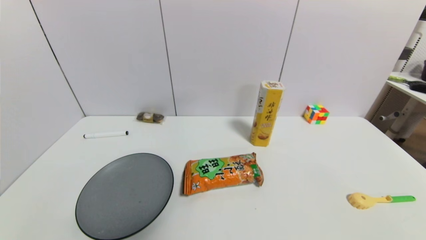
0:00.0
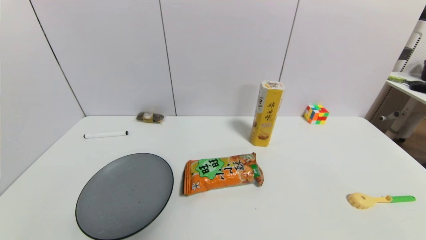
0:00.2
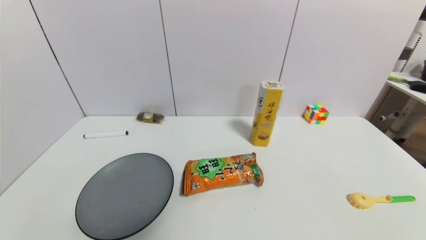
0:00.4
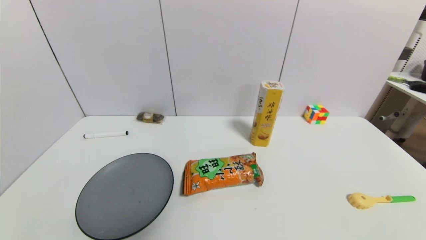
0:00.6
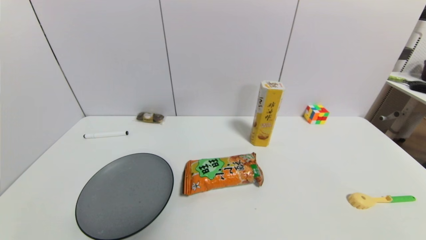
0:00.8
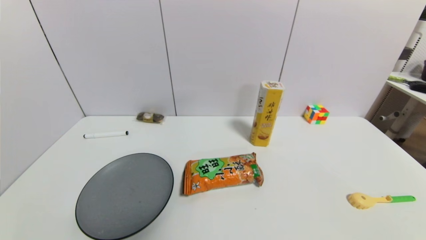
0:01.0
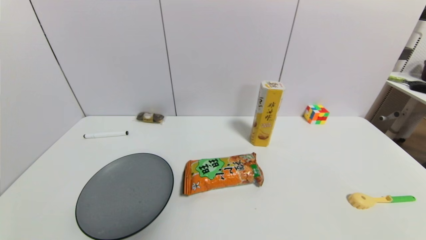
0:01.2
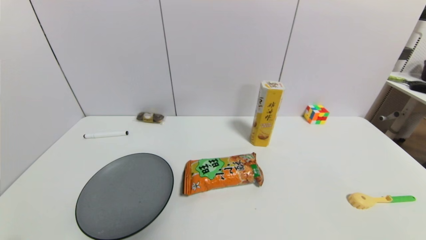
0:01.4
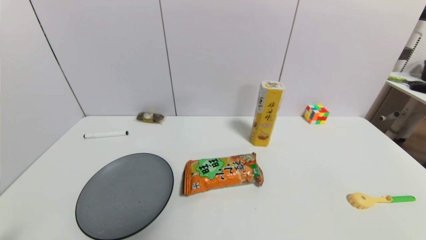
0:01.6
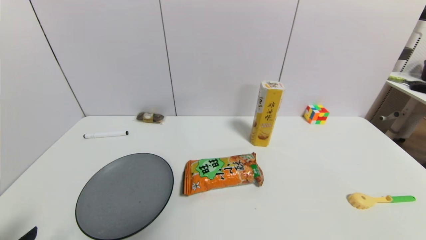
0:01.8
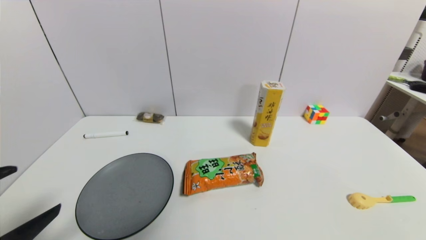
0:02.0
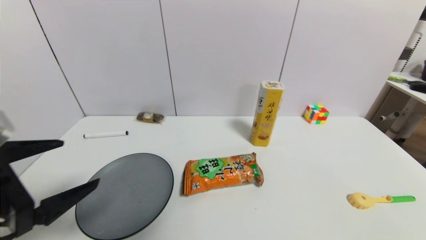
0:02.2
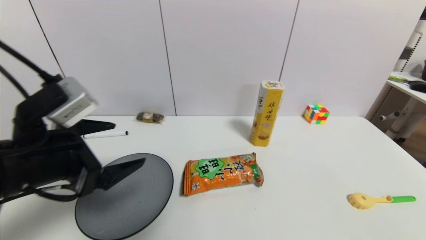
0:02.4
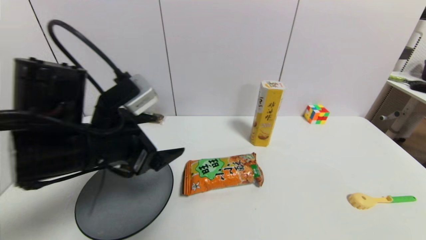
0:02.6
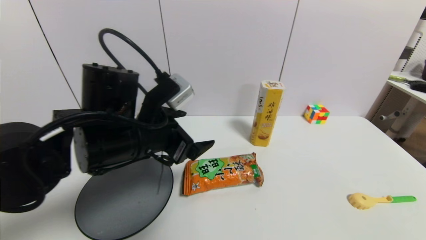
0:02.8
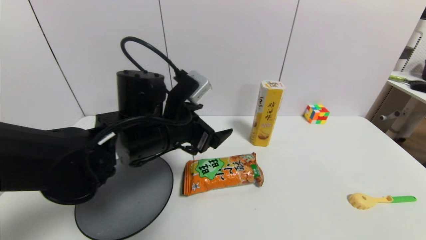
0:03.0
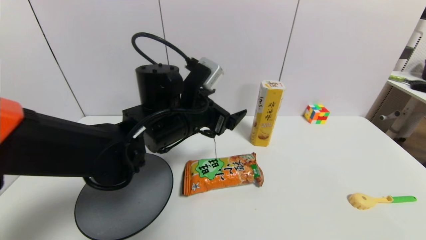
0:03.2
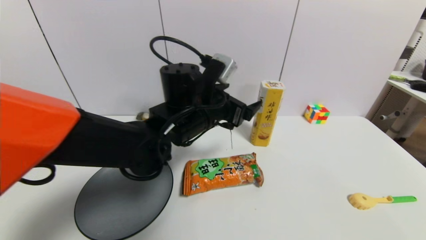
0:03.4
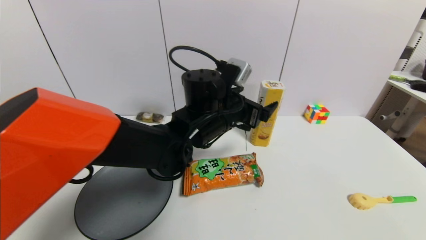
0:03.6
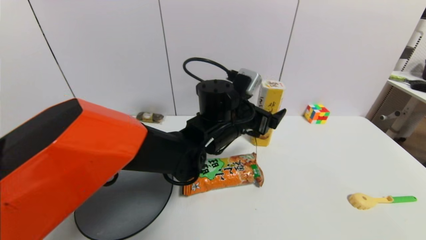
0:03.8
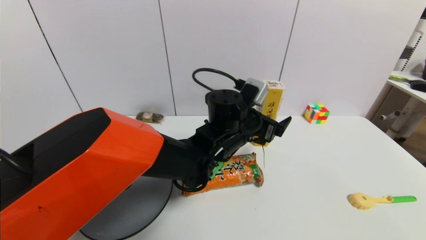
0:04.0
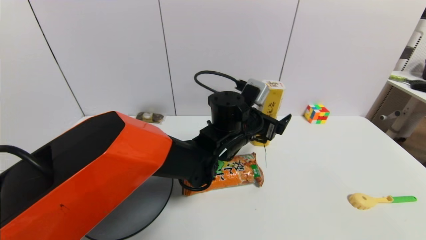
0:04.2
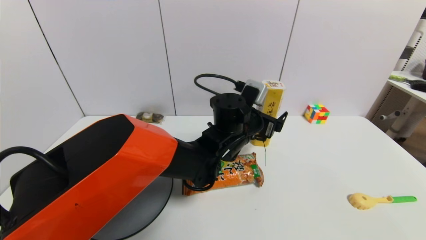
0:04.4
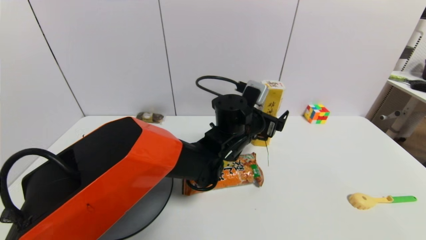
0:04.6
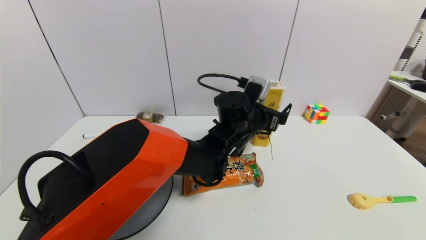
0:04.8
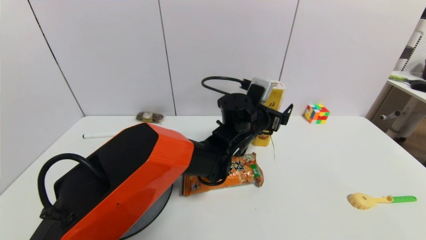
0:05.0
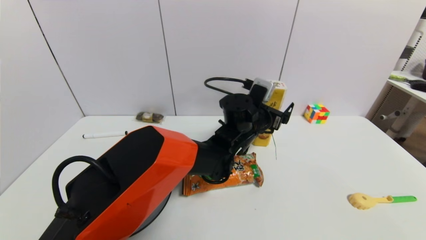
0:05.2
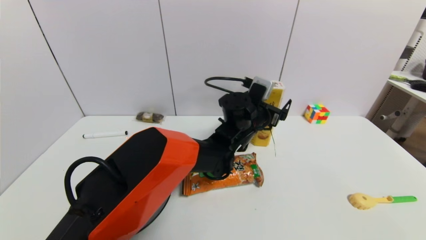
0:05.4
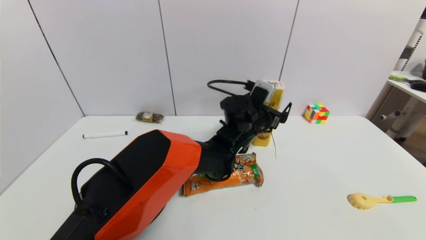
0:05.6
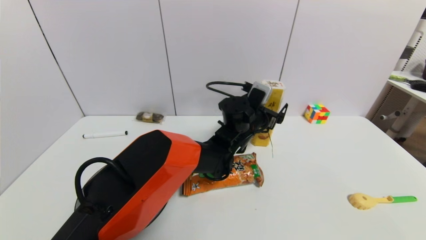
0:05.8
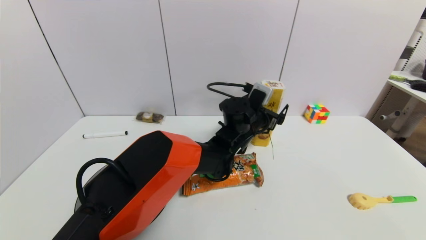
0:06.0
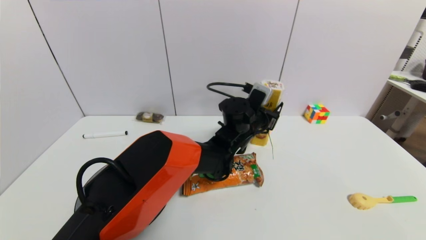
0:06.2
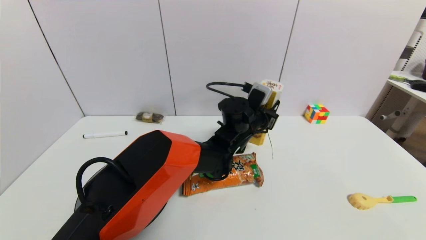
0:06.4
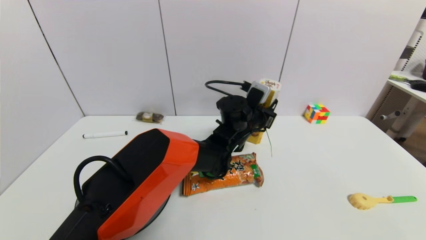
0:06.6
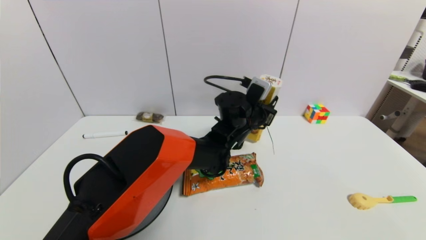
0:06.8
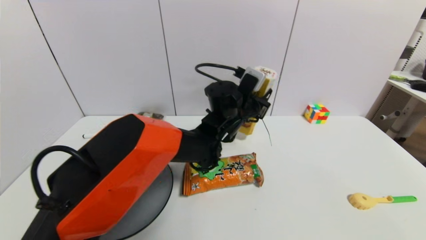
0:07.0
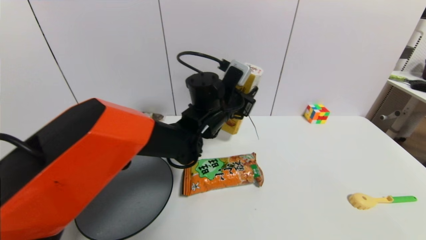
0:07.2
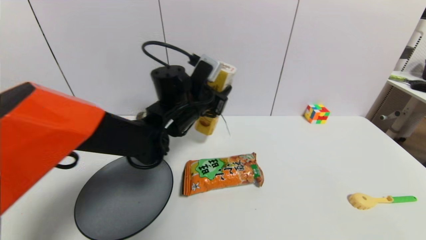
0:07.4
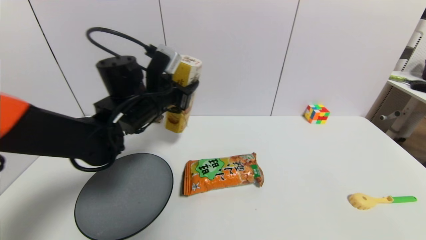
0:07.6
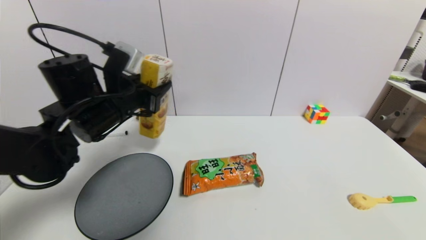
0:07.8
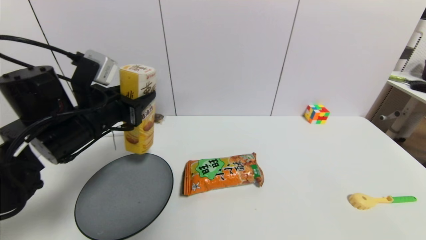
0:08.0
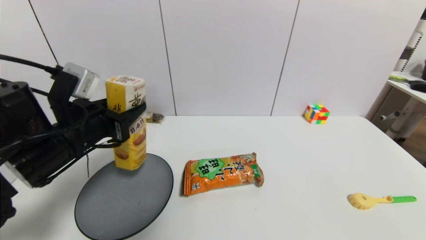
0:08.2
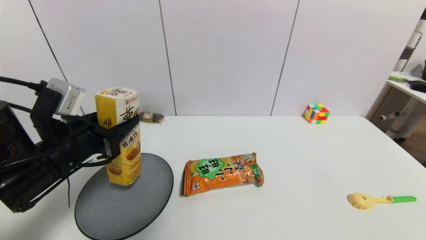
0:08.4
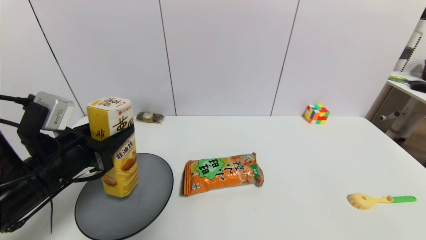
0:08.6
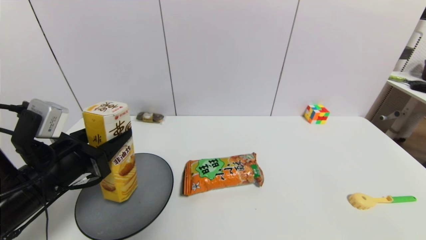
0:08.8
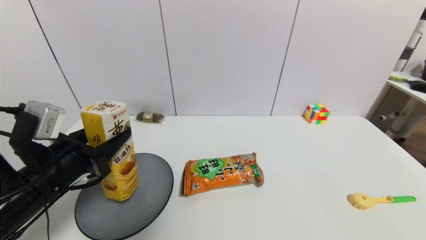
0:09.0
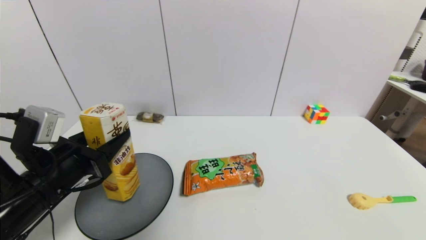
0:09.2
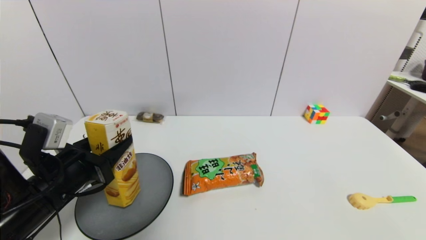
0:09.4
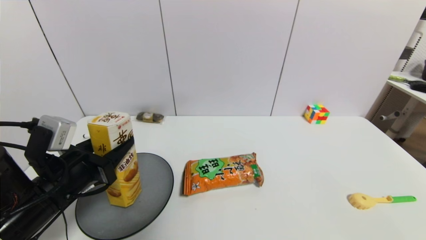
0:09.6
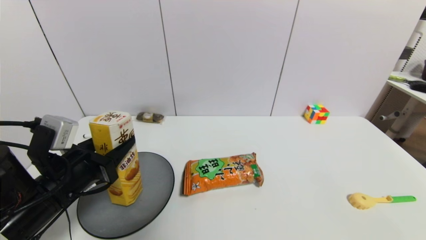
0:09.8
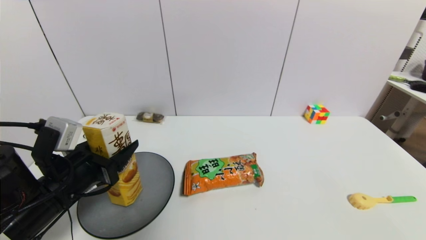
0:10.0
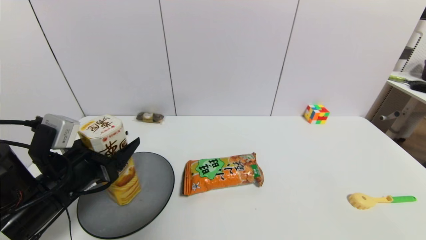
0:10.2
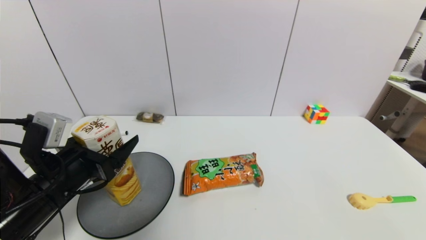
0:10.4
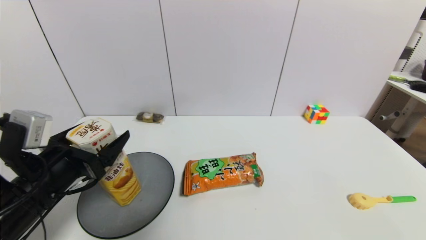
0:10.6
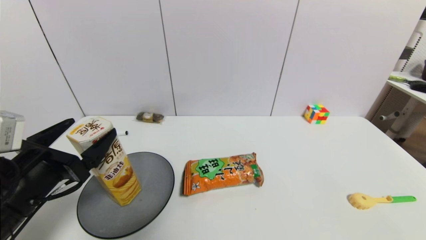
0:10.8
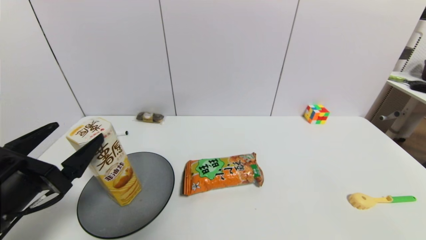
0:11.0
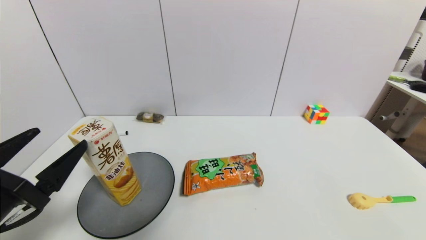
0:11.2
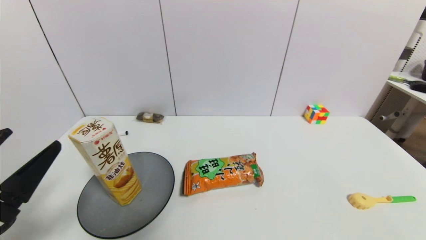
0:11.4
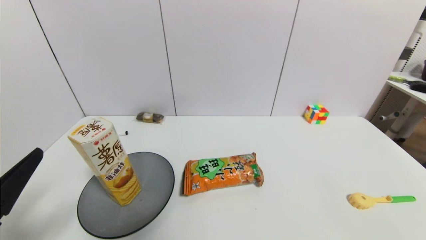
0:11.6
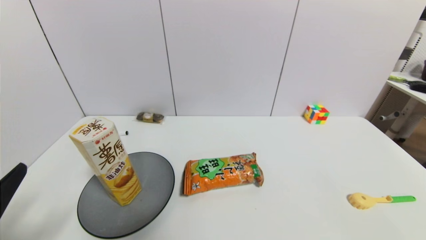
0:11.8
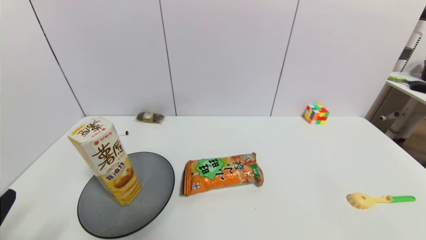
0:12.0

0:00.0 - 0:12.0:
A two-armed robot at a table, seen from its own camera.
Task of the whole recording: use a gripper to pick the target object and place on the gray plate.
Step, 0:00.0 - 0:06.4: Grasp the potato chips with the left gripper.
Step, 0:06.6 - 0:10.8: Place the potato chips on the gray plate with the left gripper.
0:01.6 - 0:03.0: The left gripper is displaced forward and to the right by roughly 35 cm.
0:03.0 - 0:04.4: The left gripper heads to the right and forward, covering about 15 cm.
0:04.4 - 0:06.0: The left gripper changes place by roughly 5 cm.
0:06.0 - 0:07.6: The left gripper is displaced to the left by about 20 cm, and closes up.
0:07.6 - 0:09.0: The left gripper heads backward and to the left, covering roughly 20 cm.
0:09.0 - 0:10.4: The left gripper opens.
0:10.4 - 0:12.0: The left gripper heads backward, covering roughly 15 cm.

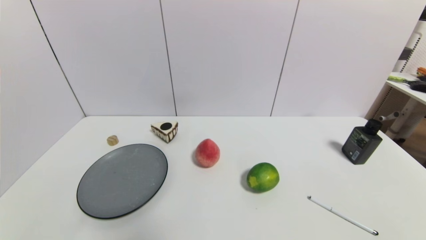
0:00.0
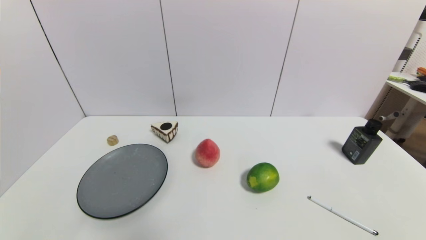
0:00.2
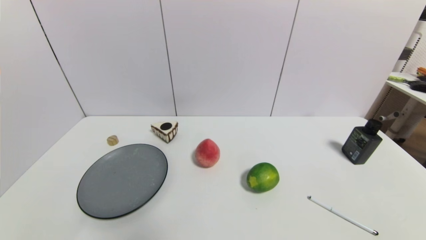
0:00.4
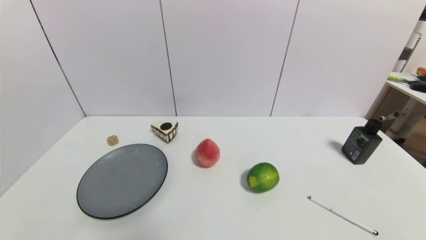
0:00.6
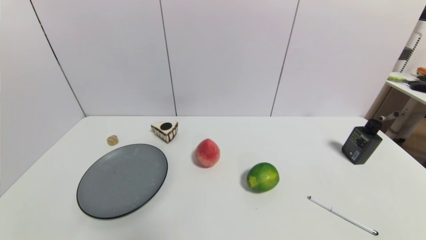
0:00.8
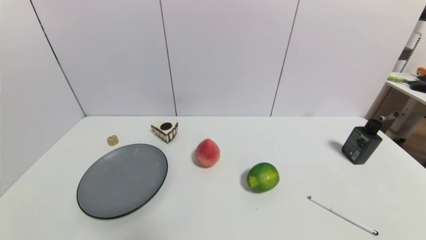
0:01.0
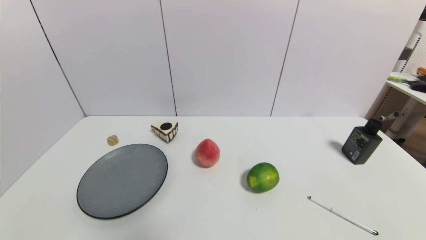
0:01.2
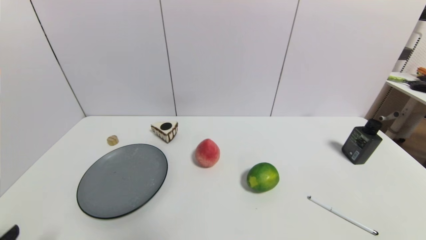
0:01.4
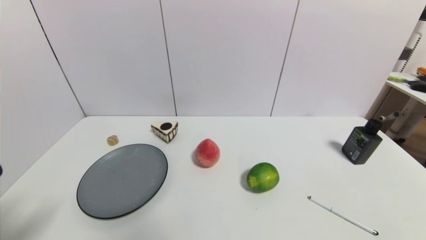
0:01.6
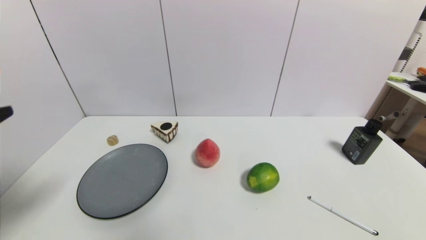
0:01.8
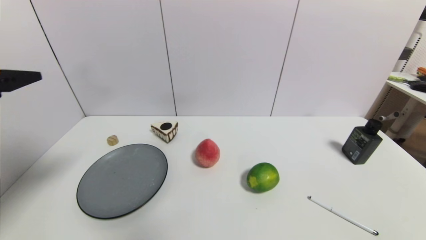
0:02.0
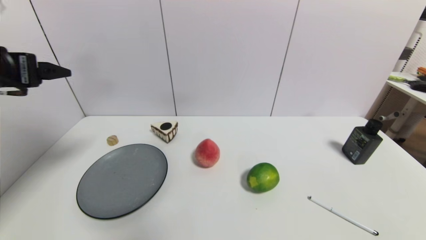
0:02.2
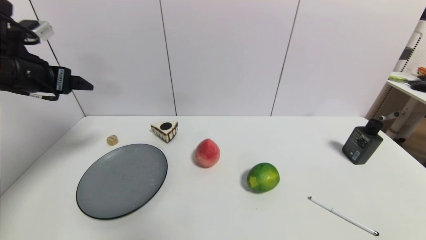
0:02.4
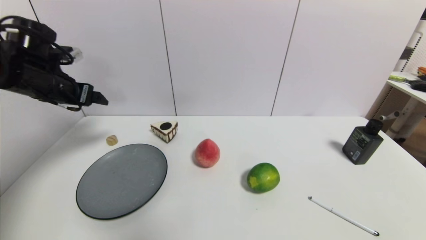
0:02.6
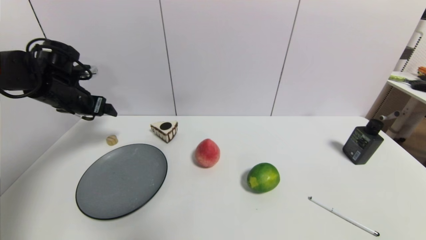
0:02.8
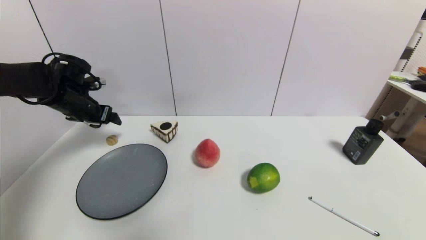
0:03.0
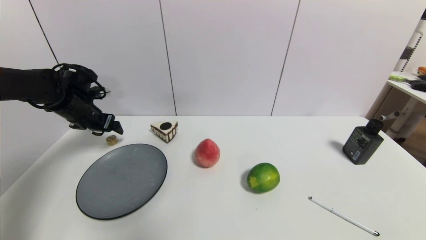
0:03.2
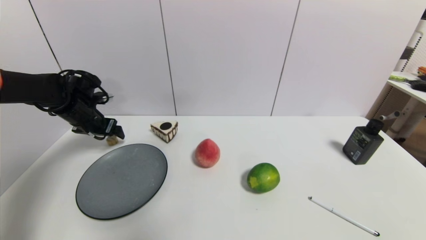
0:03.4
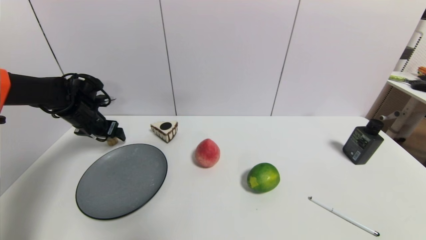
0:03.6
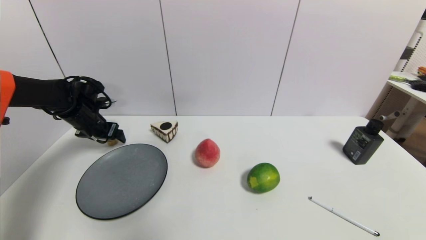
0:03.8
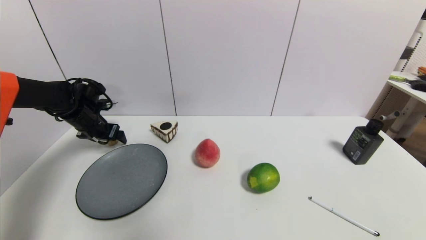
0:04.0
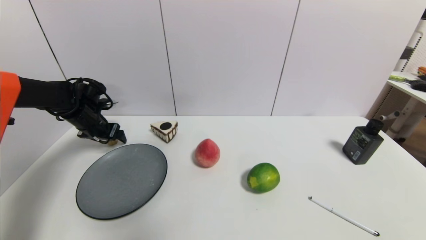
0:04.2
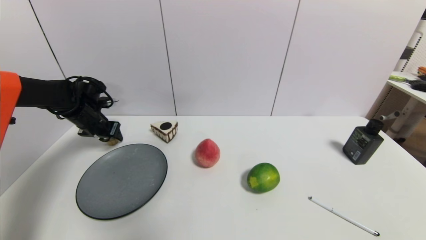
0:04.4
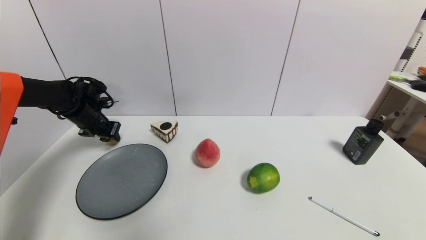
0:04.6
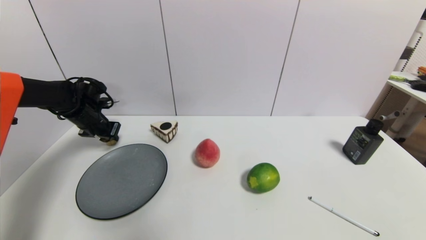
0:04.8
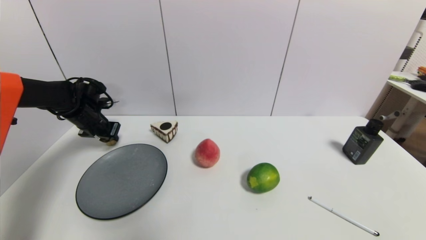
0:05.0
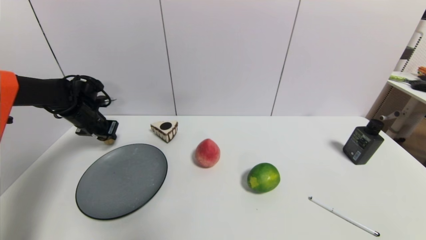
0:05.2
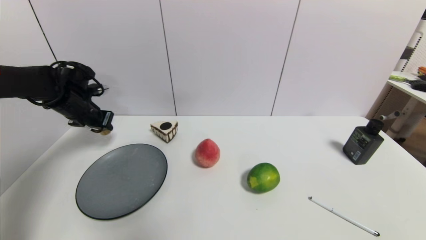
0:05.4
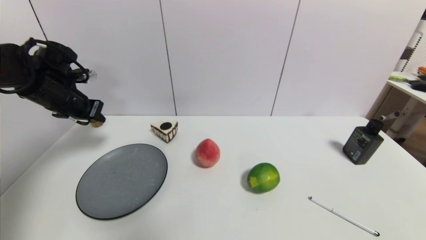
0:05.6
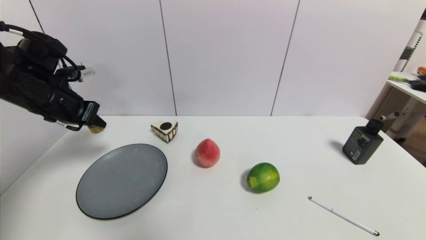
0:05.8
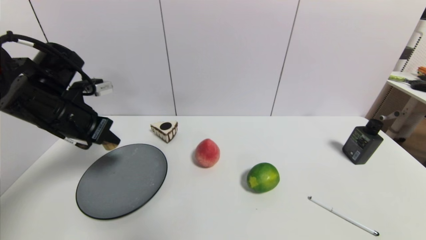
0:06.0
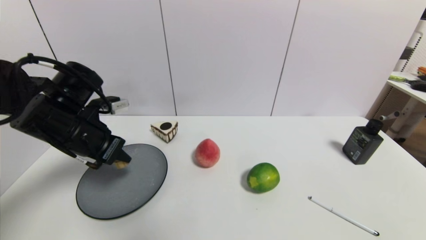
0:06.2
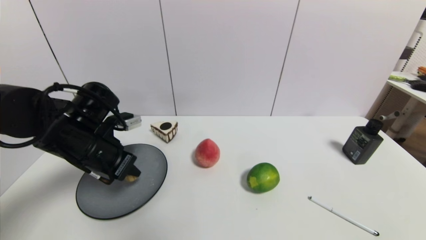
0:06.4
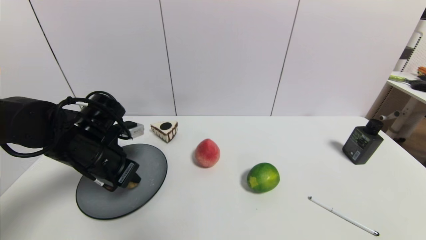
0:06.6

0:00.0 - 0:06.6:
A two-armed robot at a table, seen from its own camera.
Task of the whole recording: use a gripper to pick the target object and place on the gray plate.
Step, 0:00.0 - 0:05.2: Grasp the round wooden block with the left gripper.
0:00.0 - 0:01.6: The left gripper moves upward, about 15 cm.
0:01.6 - 0:03.2: The left gripper moves forward, about 35 cm.
0:03.2 - 0:05.0: The left gripper closes.
0:05.0 - 0:06.6: The left gripper moves backward and to the right, approximately 20 cm.
